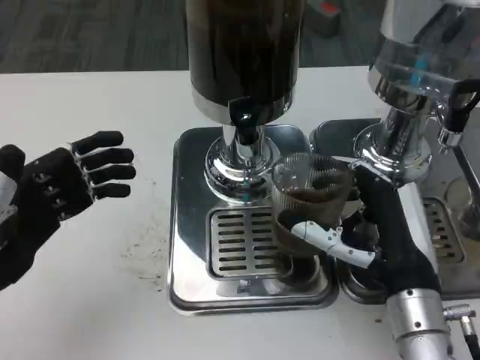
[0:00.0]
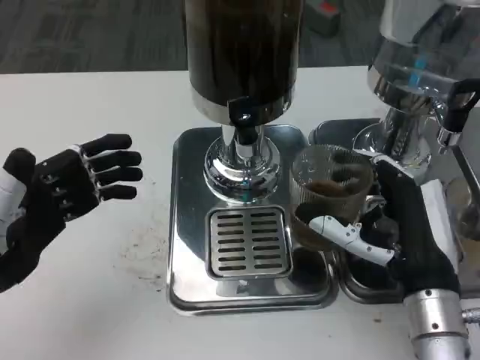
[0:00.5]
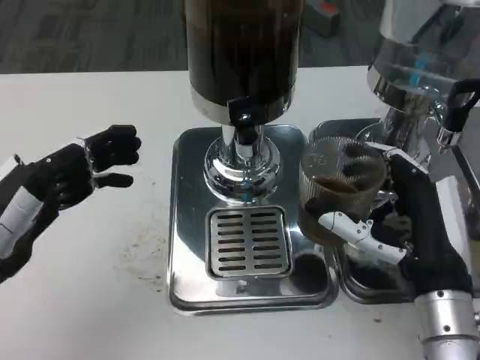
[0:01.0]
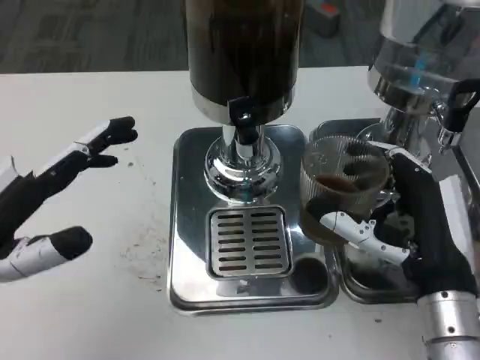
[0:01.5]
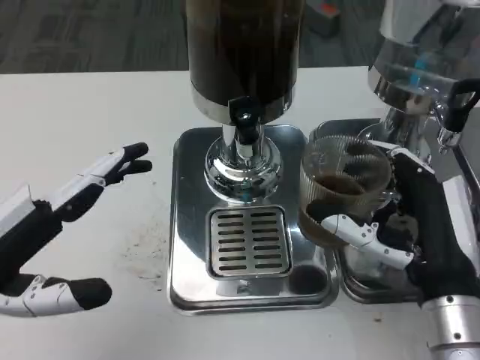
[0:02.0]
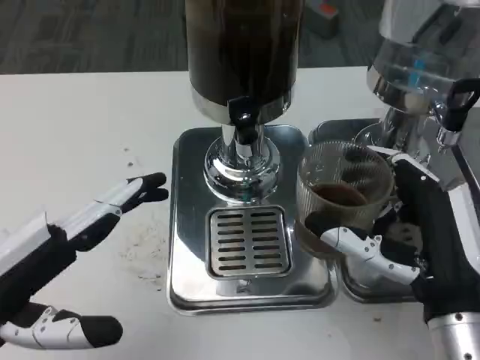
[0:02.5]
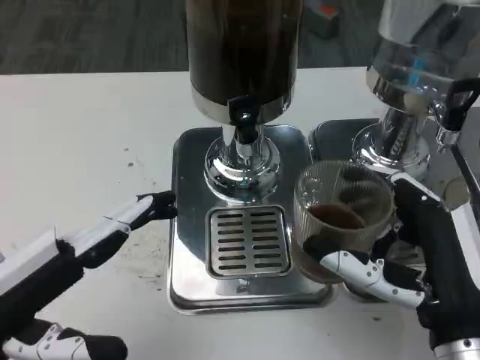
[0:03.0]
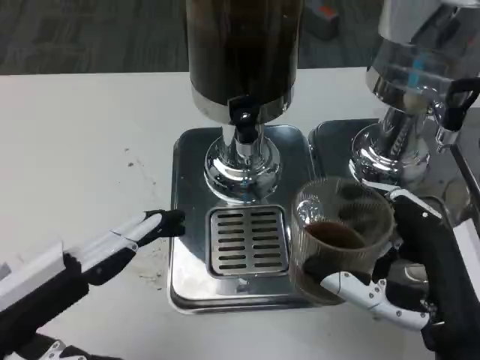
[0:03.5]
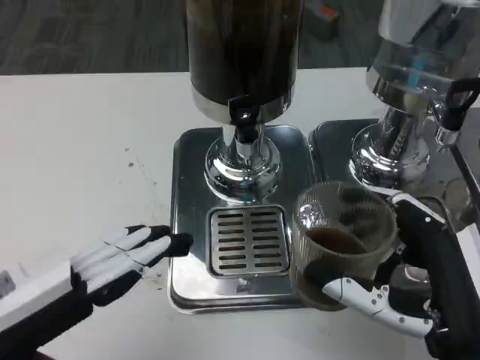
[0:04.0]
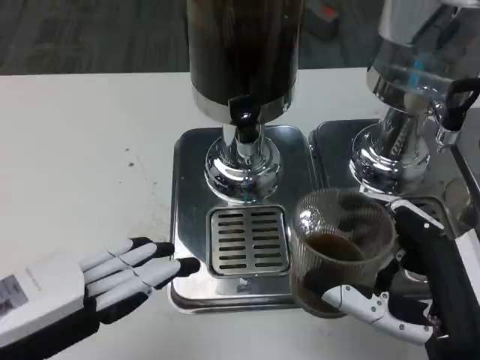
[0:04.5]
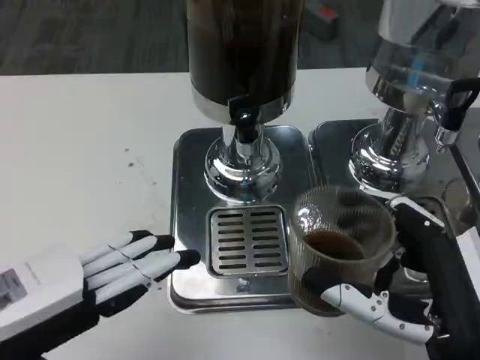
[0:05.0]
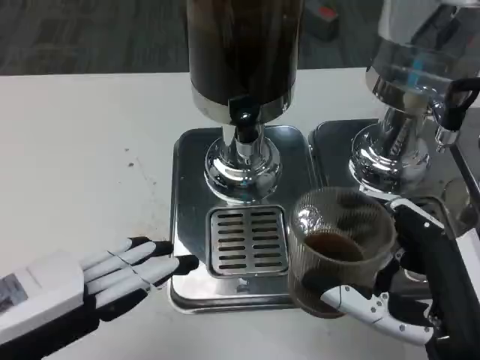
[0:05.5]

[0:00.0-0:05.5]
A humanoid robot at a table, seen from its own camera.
Task of the whole recording: Grasp the cup under the faucet to collect the drink, then remove the cup.
0:00.0 to 0:02.0: The left hand ends up roughly 5 cm from where it was.
0:02.0 to 0:03.5: The right hand shifts approximately 5 cm backward.
0:03.5 to 0:05.5: The hands stay close to where they were, moving slightly.

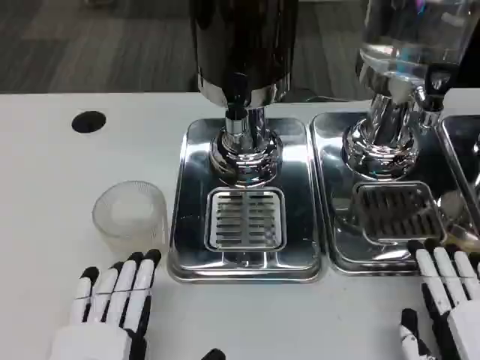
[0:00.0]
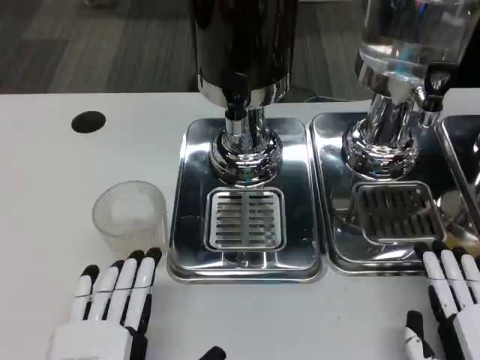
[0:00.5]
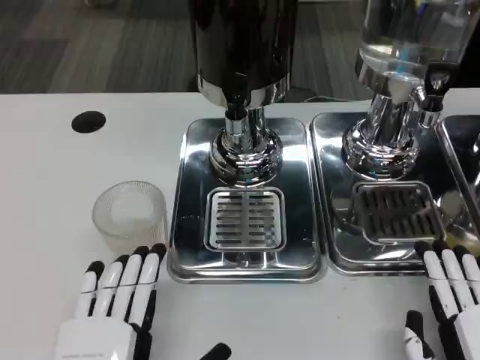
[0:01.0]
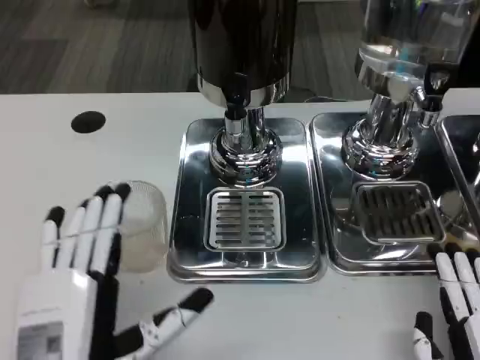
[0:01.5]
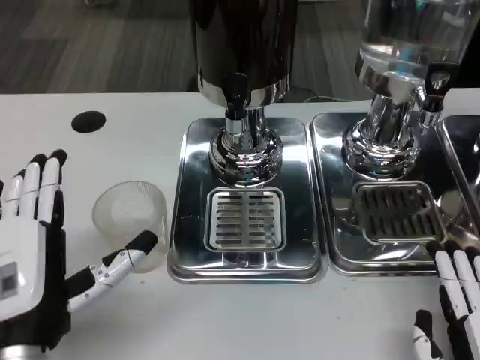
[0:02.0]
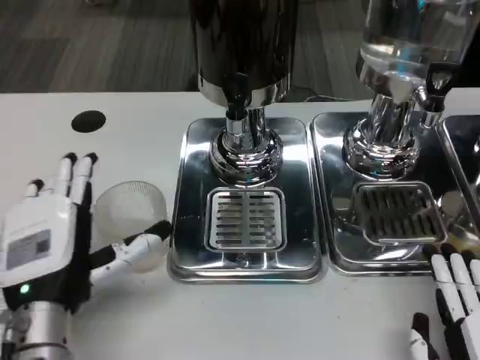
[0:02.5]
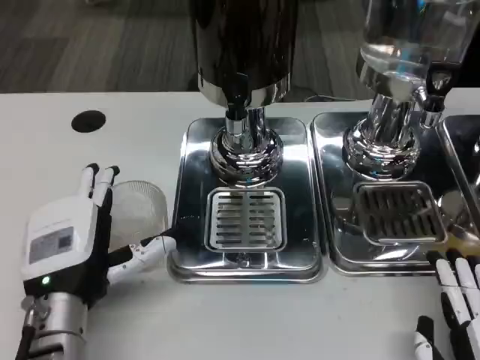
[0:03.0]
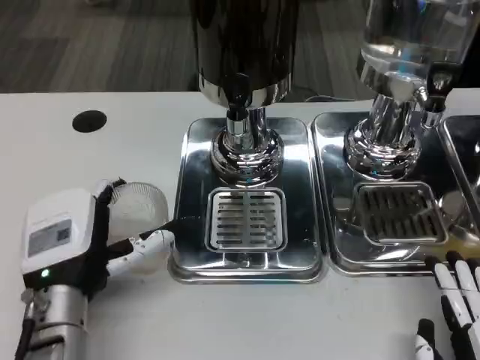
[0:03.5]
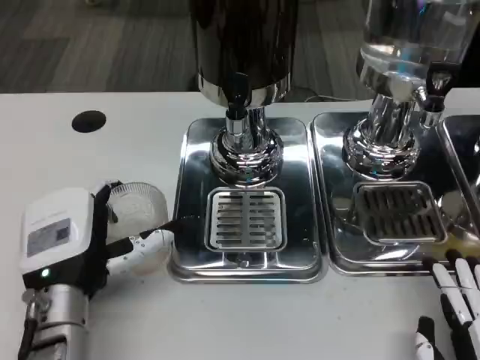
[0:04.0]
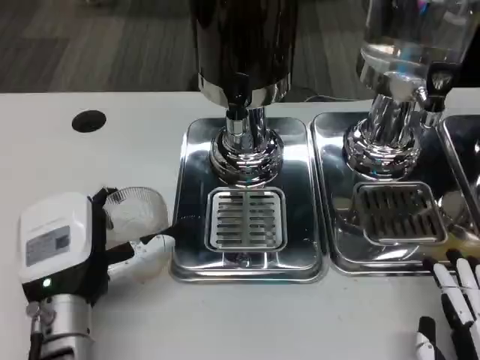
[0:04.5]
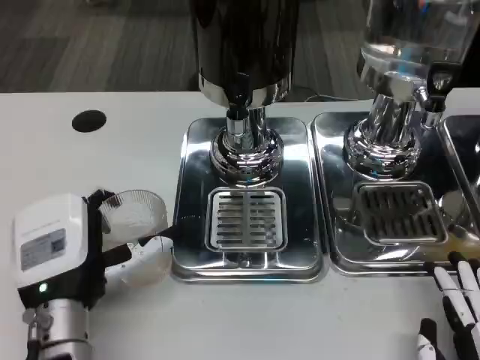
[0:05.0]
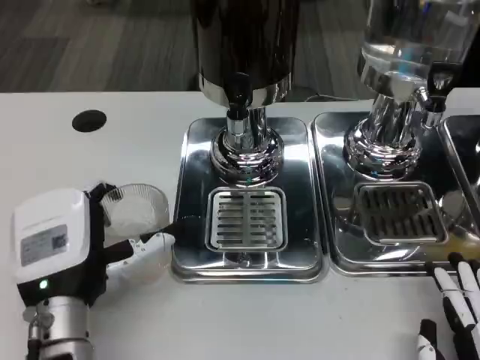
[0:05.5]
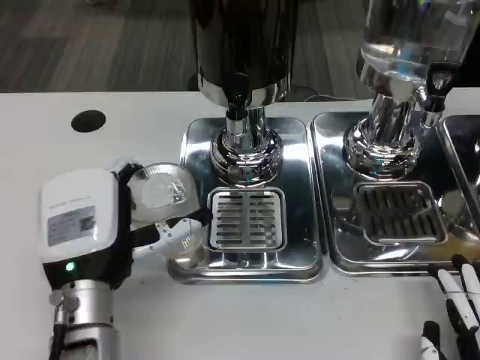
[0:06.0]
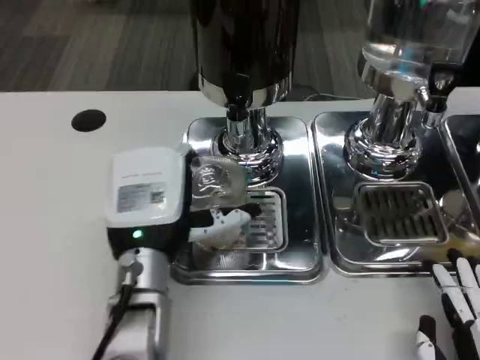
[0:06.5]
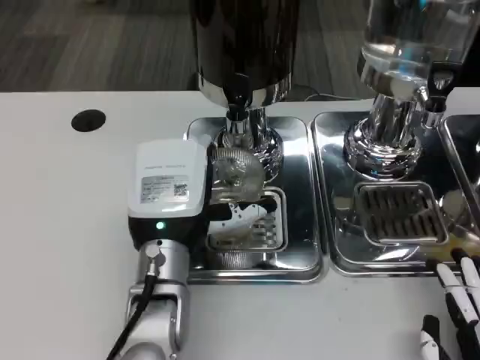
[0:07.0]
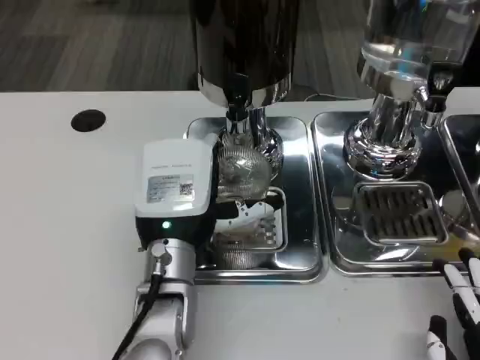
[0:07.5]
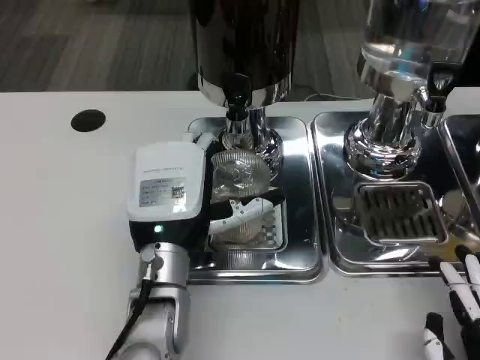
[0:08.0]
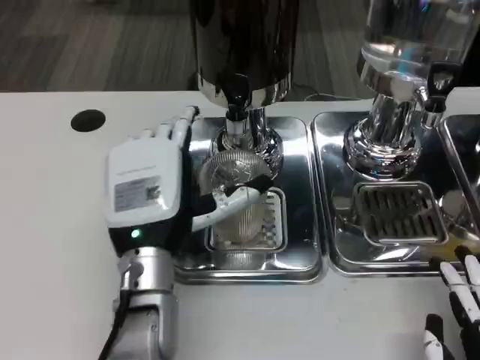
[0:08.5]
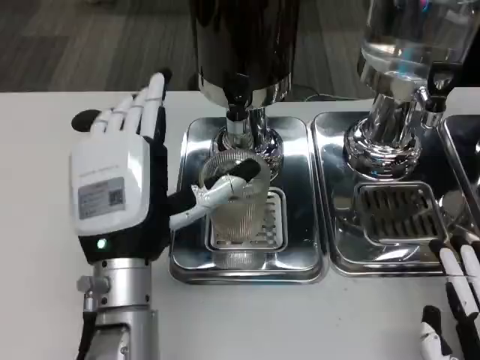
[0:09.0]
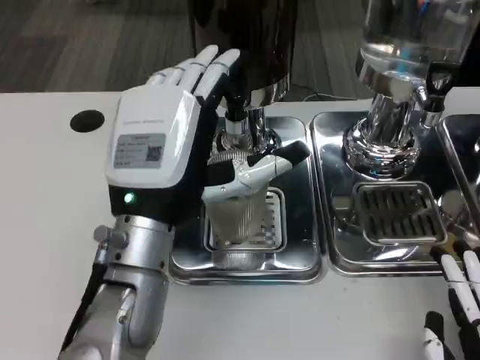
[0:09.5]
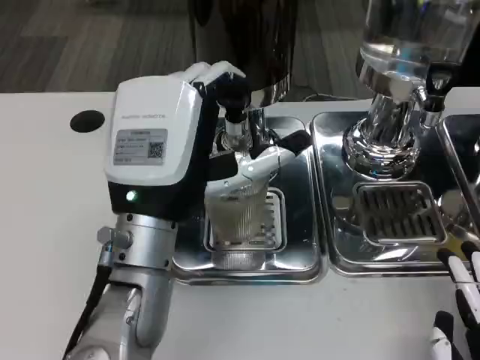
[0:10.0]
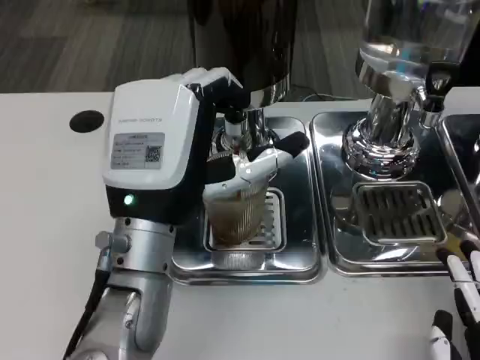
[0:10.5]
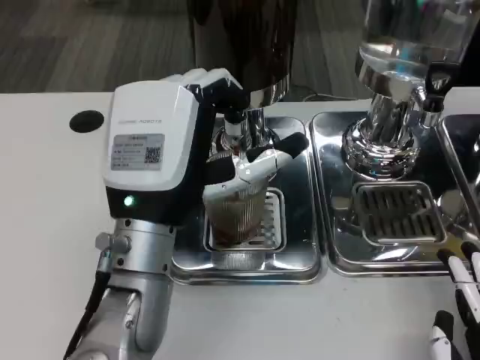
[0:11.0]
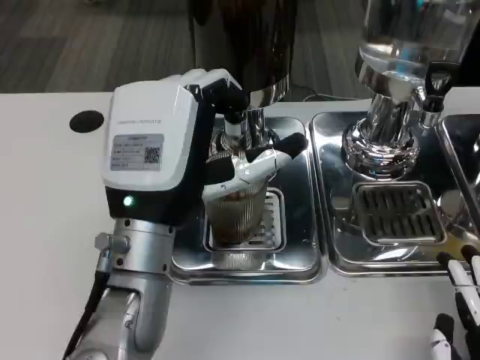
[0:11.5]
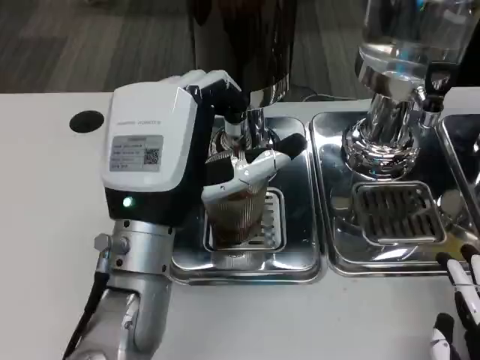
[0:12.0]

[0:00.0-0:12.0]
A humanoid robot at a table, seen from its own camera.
Task of the whole recording: Grasp the cup under the faucet to collect the drink, then remove the cup.
0:00.0 to 0:02.0: The left hand travels forward and upward by roughly 10 cm.
0:02.0 to 0:04.0: The left hand travels forward by about 5 cm.
0:04.0 to 0:06.0: There are only small adjustments of the hands.
0:06.0 to 0:08.0: The left hand heads to the right, covering some 5 cm.
0:08.0 to 0:10.0: The left hand travels upward by approximately 5 cm.
0:10.0 to 0:12.0: Neither hand changes place.

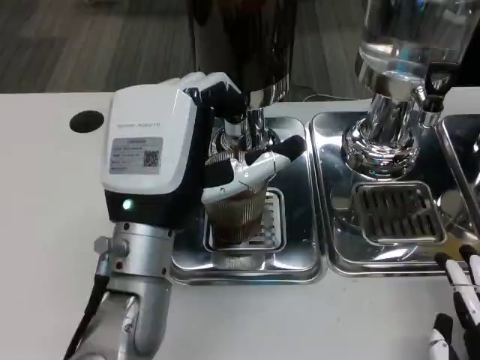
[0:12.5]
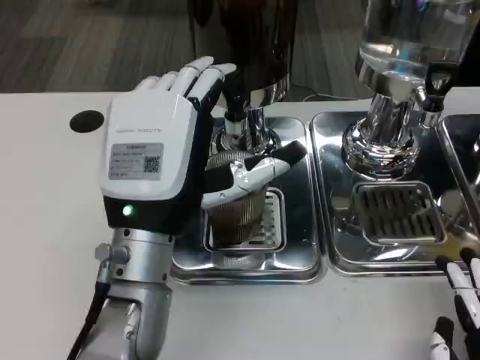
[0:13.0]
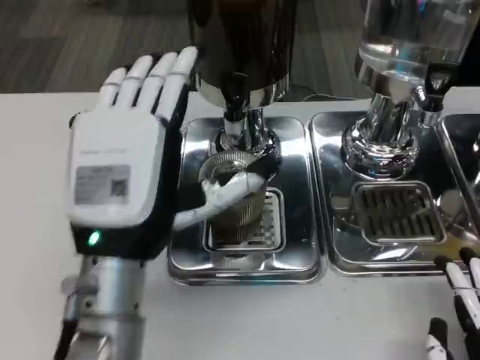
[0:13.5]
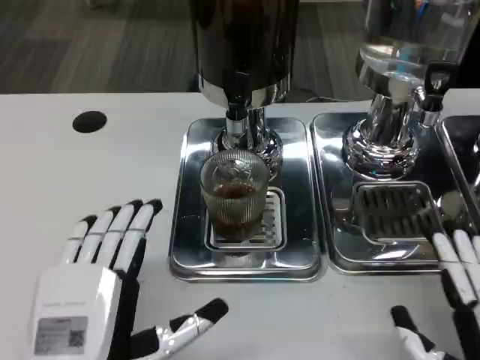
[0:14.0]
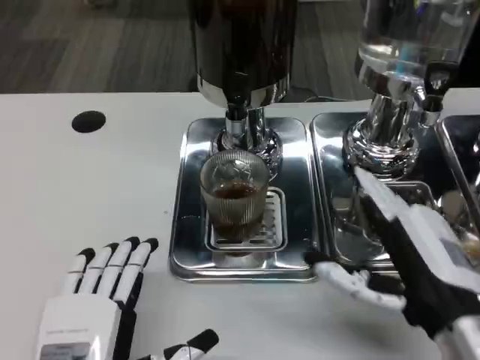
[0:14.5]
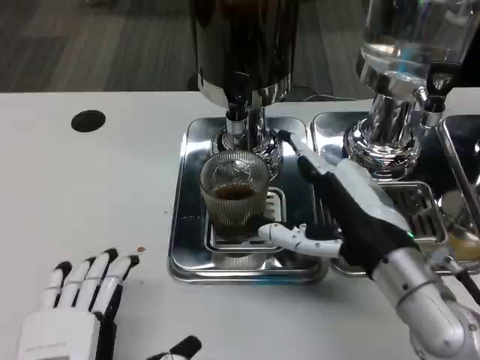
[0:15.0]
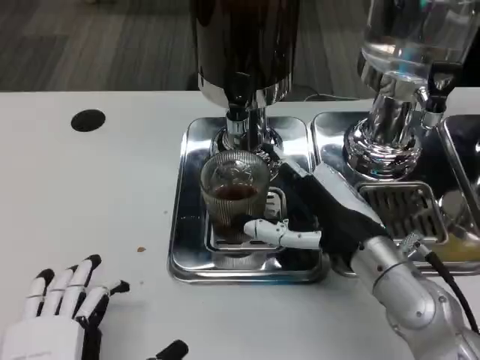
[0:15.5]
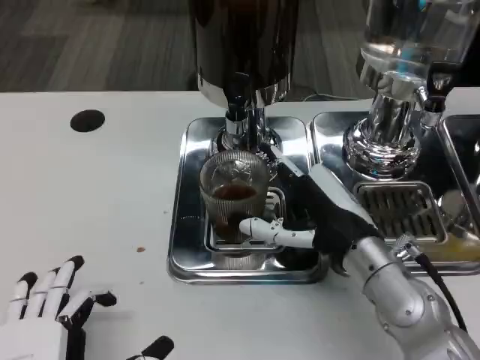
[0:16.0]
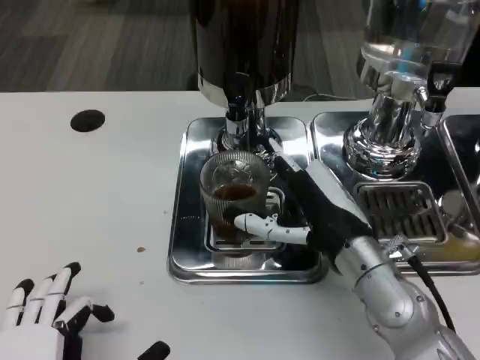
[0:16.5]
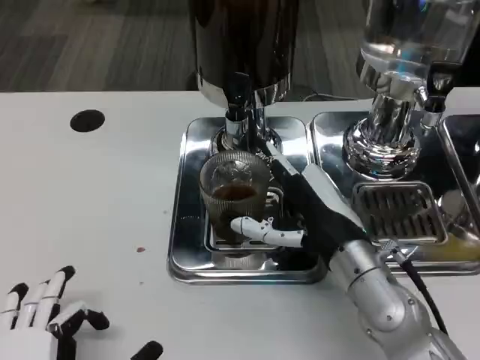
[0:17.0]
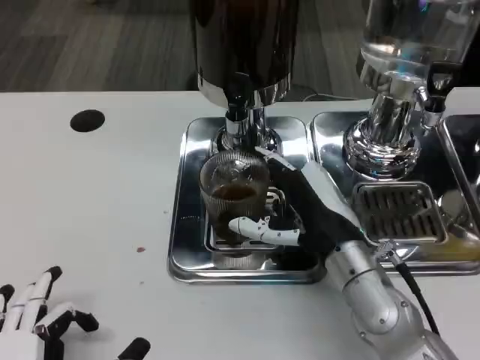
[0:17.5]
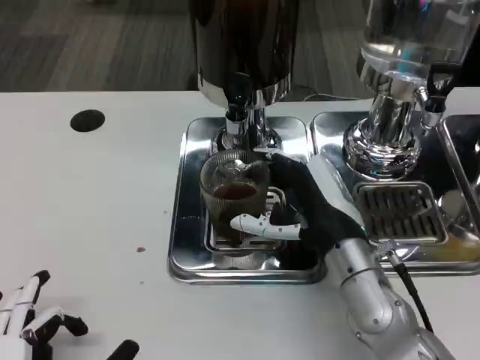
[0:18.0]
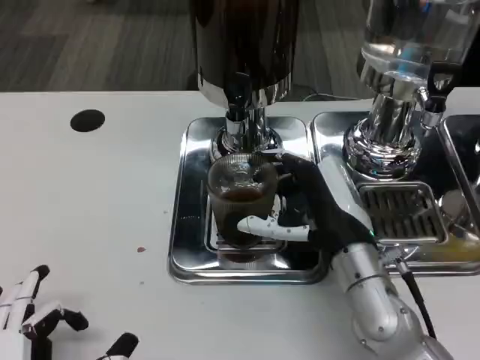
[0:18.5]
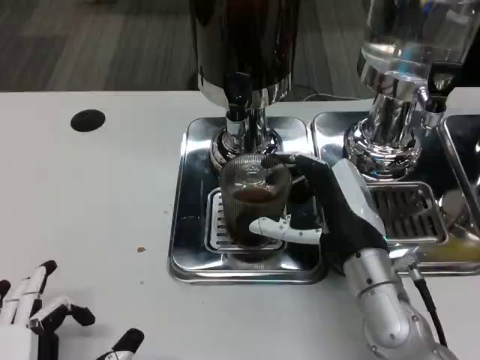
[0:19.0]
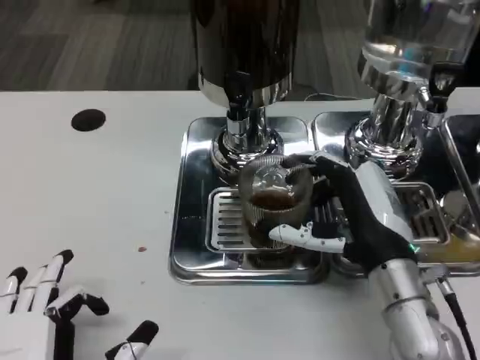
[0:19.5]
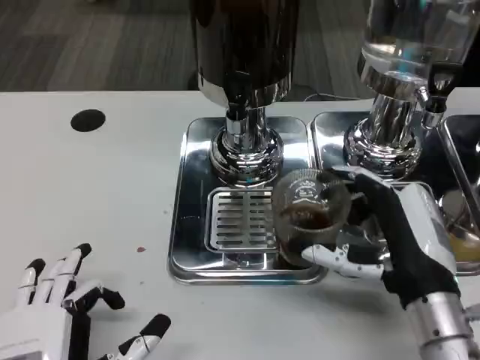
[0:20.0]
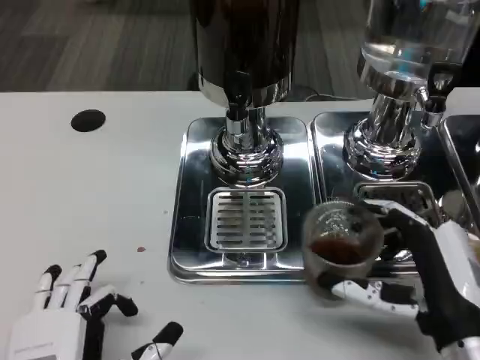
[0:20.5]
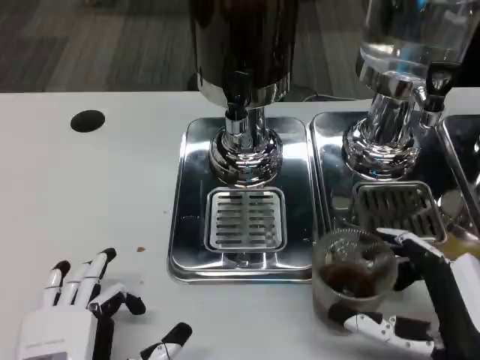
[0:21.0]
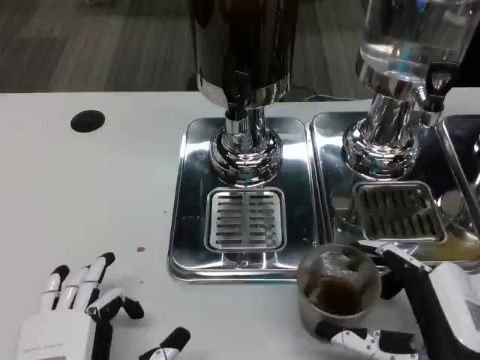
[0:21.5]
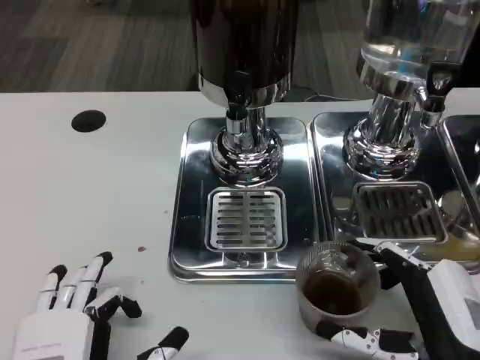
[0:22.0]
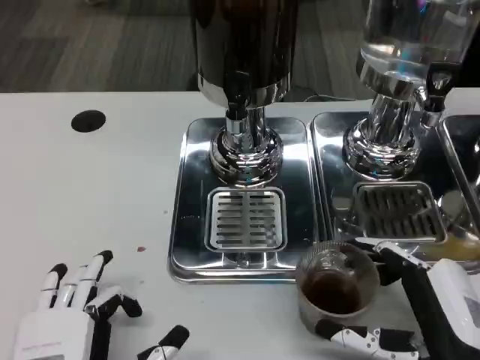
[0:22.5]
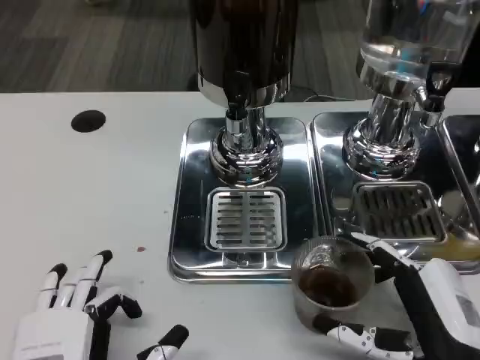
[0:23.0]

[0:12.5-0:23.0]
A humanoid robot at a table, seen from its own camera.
Task of the whole recording: Grasp the cup under the faucet to collect the drink, then remove the cup.
0:12.5 to 0:14.5: The right hand is displaced forward and upward by some 10 cm. The left hand heads backward, downward and to the left, covering approximately 20 cm.
0:14.5 to 0:16.5: The right hand heads forward and to the left, covering roughly 10 cm.
0:16.5 to 0:19.0: The hands move only a little.
0:19.0 to 0:21.0: The right hand travels backward and to the right by about 15 cm.
0:21.0 to 0:23.0: The hands stay close to where they were, moving slightly.
